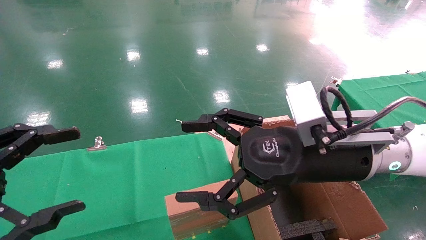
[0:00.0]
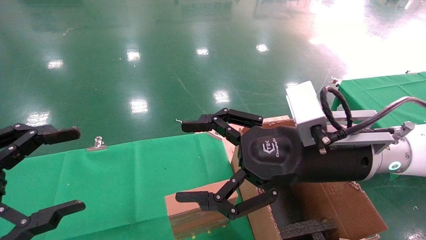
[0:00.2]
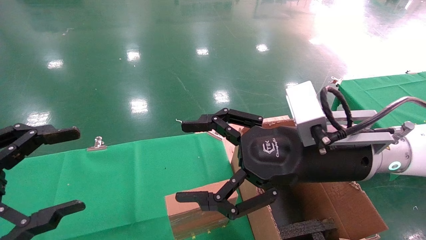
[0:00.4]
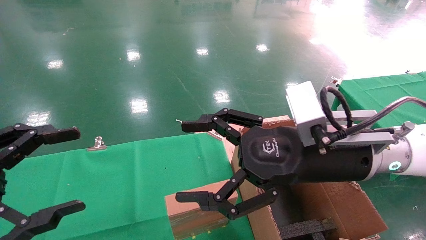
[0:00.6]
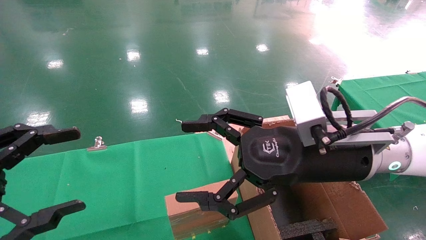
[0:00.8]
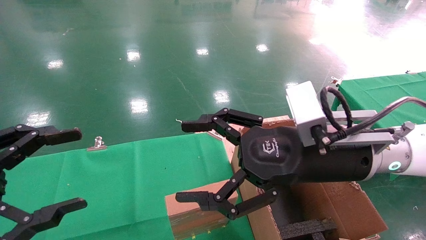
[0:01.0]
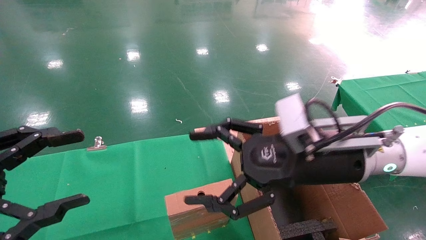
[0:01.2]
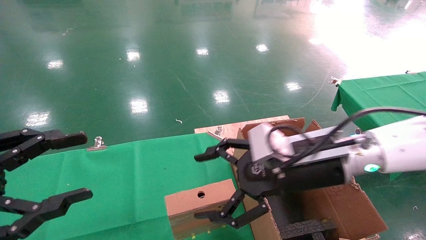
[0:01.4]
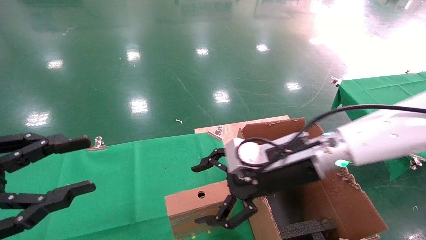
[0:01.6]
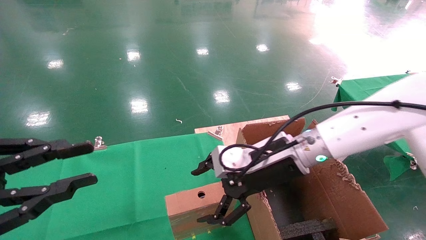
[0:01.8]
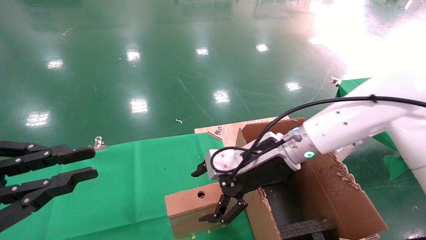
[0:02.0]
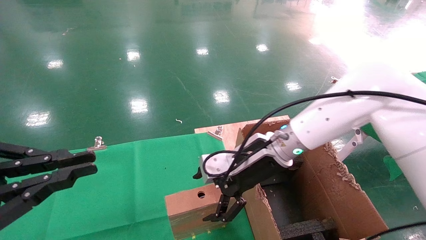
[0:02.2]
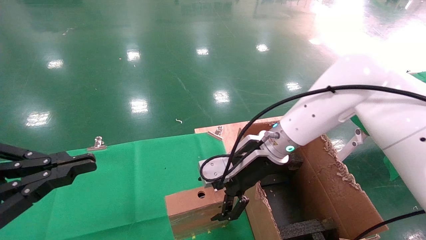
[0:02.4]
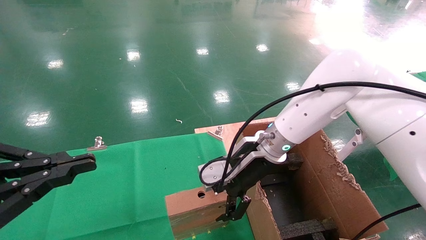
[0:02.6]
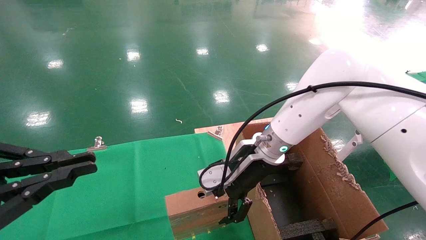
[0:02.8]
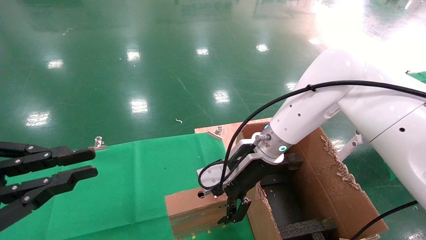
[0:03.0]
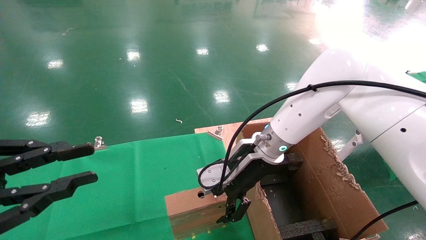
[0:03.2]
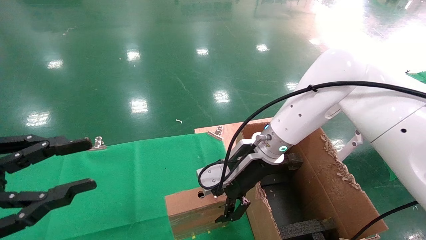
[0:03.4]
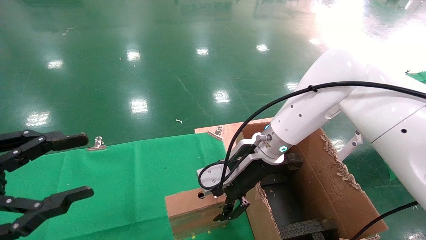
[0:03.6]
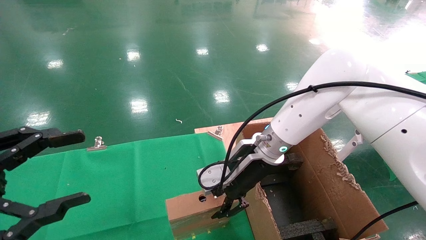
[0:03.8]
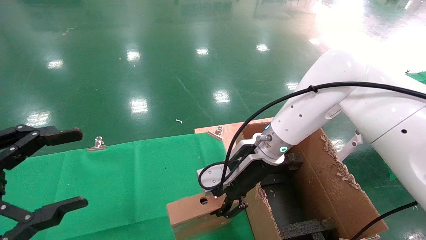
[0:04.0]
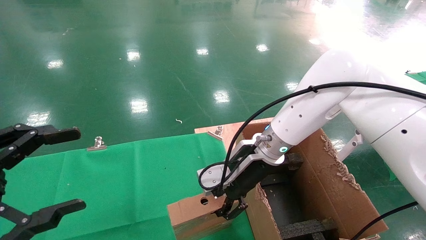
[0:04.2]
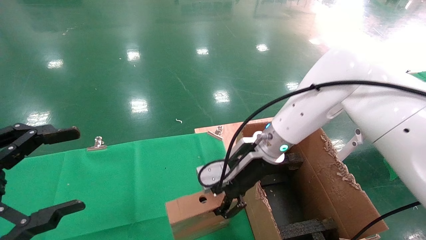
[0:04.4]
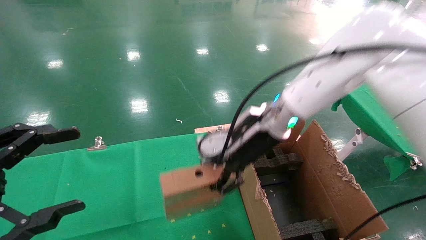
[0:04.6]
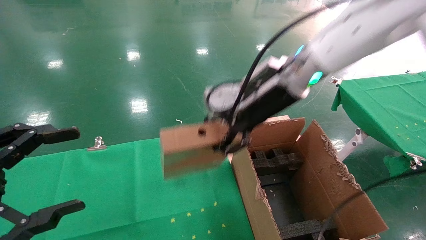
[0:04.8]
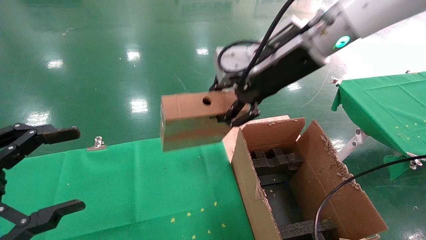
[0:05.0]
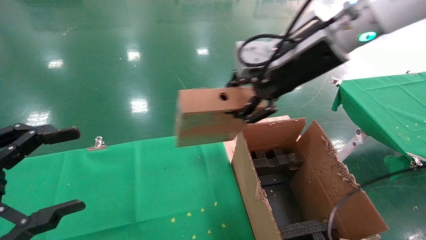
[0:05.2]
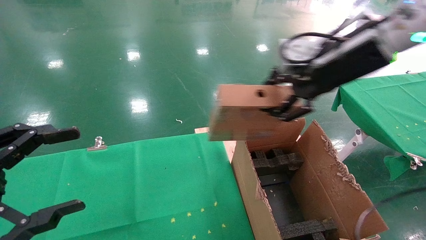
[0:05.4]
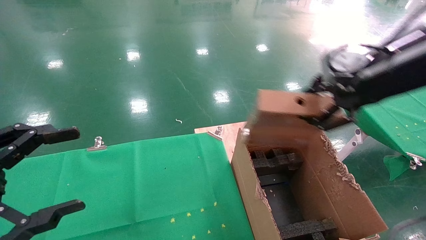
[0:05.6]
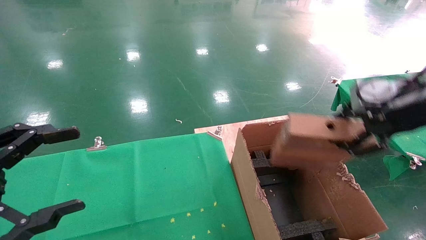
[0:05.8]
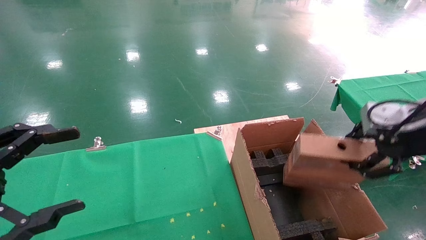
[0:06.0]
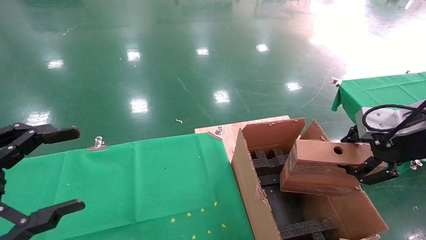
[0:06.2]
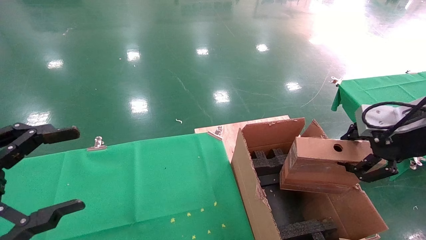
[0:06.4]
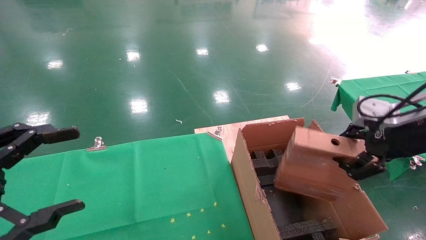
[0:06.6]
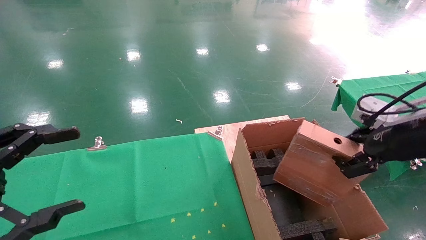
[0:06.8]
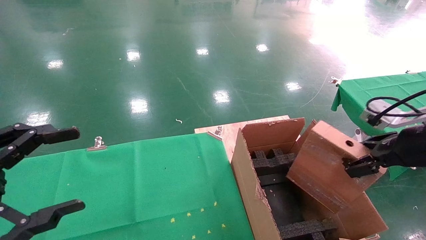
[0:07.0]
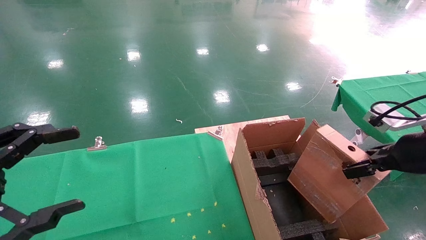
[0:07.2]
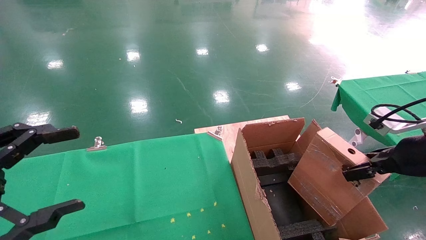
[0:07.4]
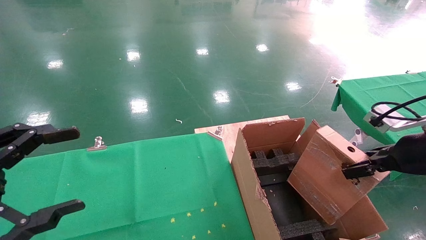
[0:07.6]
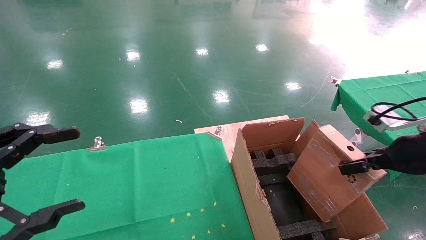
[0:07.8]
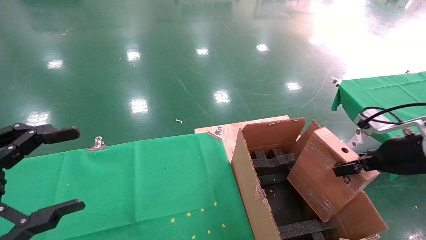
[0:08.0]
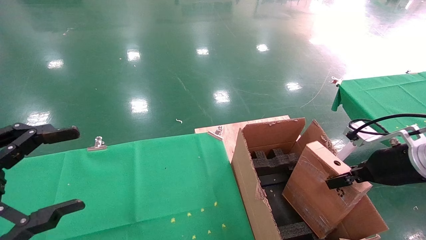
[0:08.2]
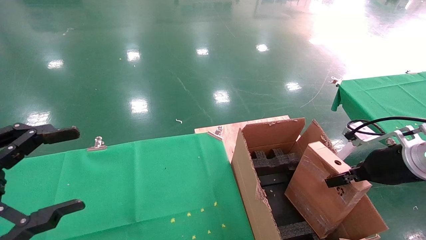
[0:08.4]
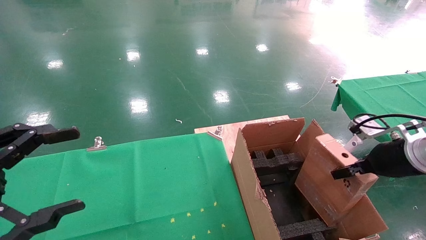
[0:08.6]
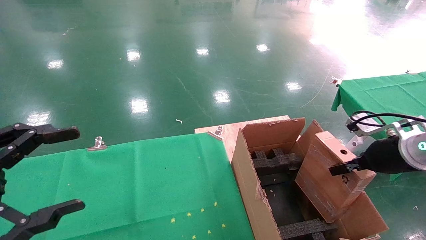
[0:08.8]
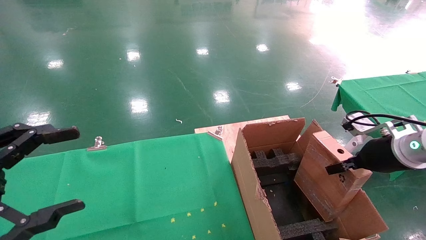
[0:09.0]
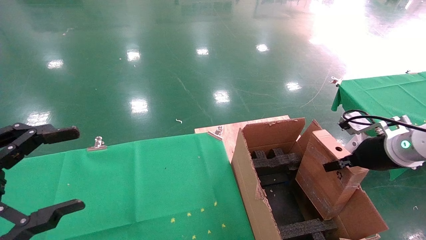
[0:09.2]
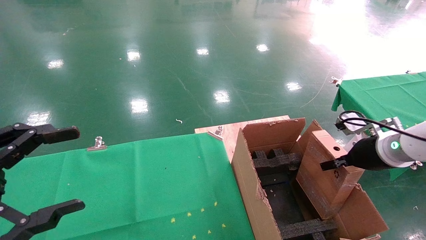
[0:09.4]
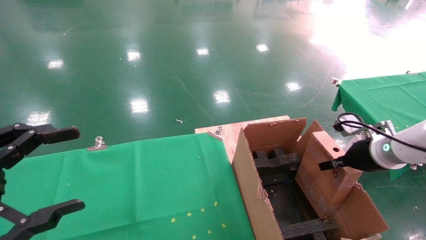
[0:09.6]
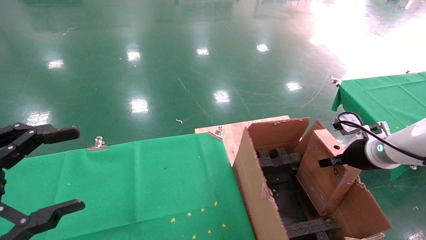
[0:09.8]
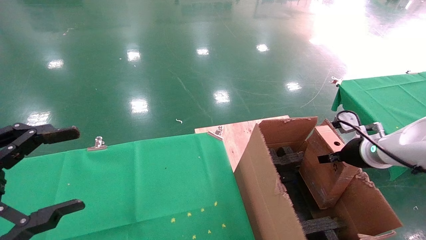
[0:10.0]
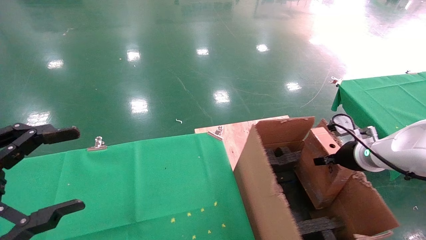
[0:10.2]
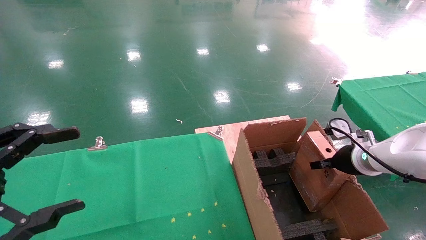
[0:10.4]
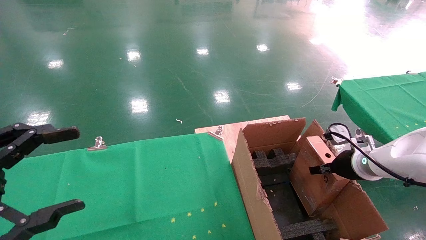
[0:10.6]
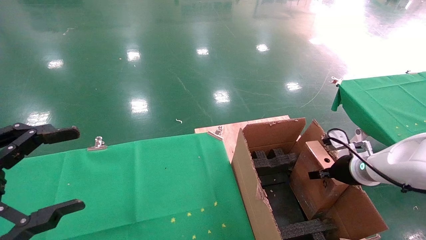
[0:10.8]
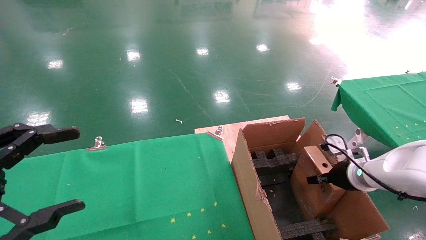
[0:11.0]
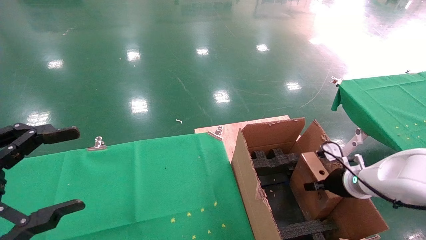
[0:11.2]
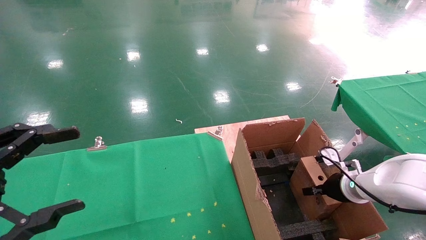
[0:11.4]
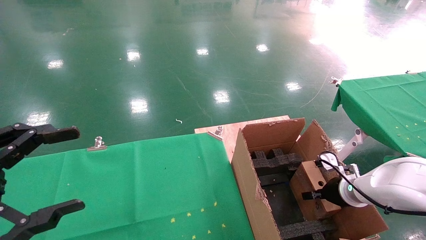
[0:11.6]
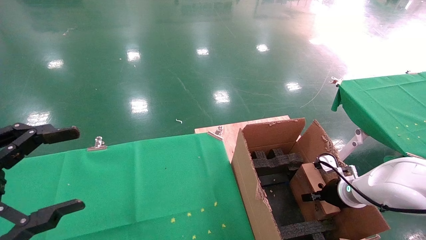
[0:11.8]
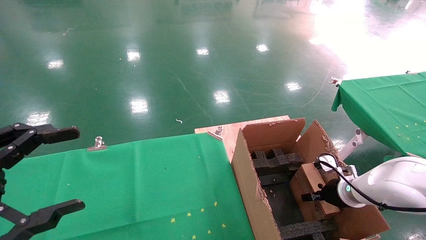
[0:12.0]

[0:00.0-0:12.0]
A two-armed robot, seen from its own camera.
Task of the whole recording: using a robotic arm to pick up a cardboard box and palace it the carton.
Step, 0:01.4 to 0:03.8: Pick up the mouse and the power cord paper box.
0:00.0 to 0:01.6: The right gripper goes roughly 5 cm forward. Meanwhile the left gripper closes its fingers.
0:01.6 to 0:03.0: The left gripper closes up, while the right gripper shifts about 5 cm forward.
0:03.0 to 0:04.4: The right gripper closes its fingers; the left gripper opens up.
0:04.4 to 0:06.0: The right gripper goes roughly 30 cm to the right and backward.
0:06.0 to 0:07.6: The right gripper heads downward, covering roughly 10 cm.
0:07.6 to 0:09.0: The right gripper goes approximately 5 cm forward.
0:09.0 to 0:10.4: The right gripper moves downward and forward, approximately 10 cm.
0:10.4 to 0:12.0: The right gripper heads downward, covering about 10 cm.

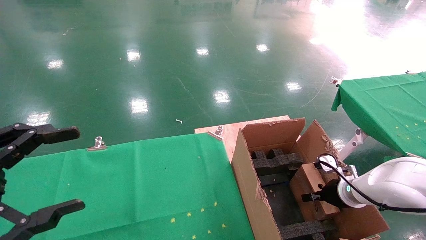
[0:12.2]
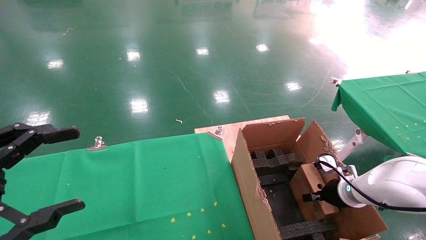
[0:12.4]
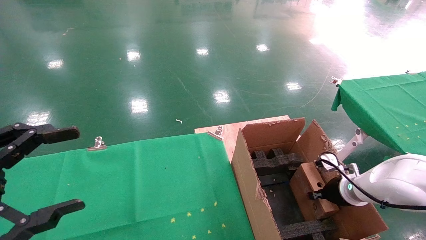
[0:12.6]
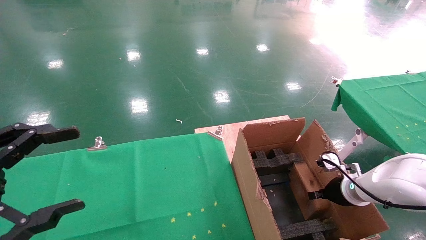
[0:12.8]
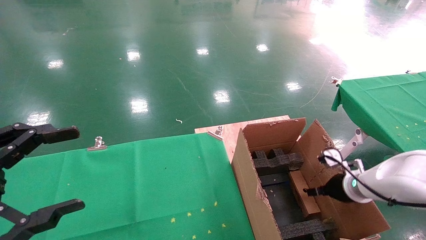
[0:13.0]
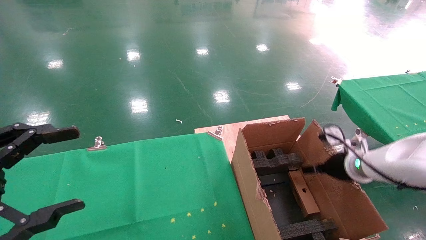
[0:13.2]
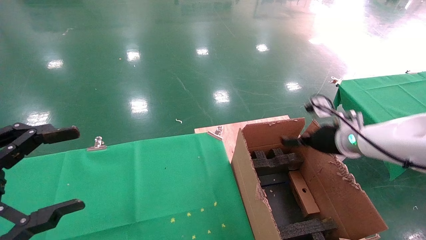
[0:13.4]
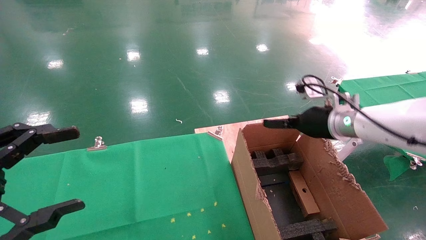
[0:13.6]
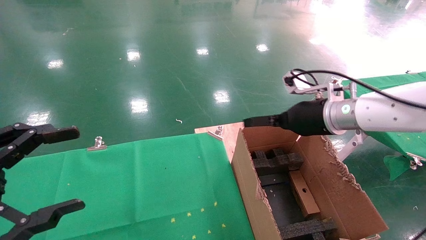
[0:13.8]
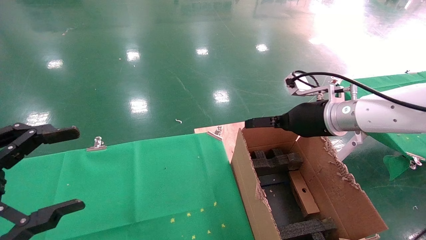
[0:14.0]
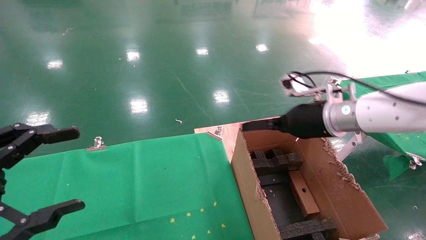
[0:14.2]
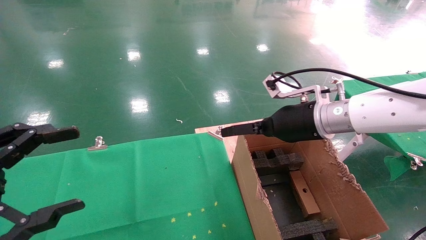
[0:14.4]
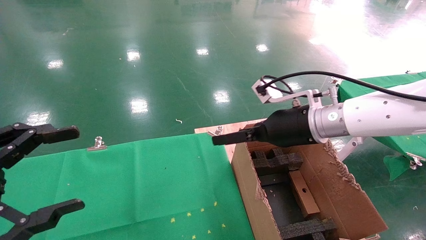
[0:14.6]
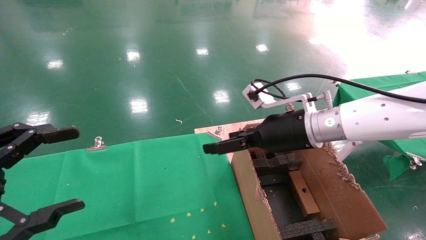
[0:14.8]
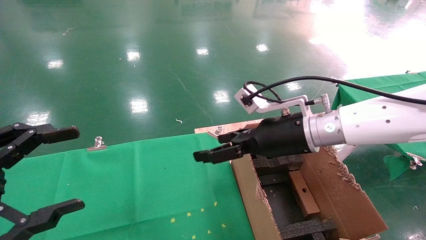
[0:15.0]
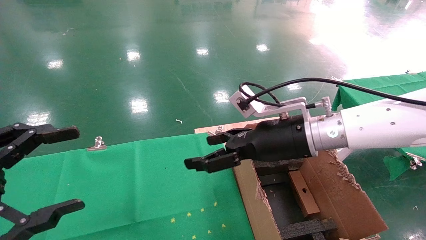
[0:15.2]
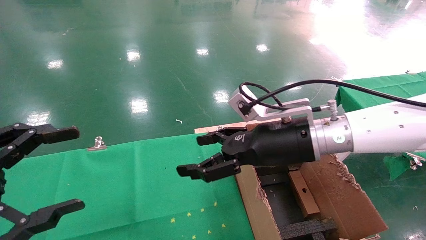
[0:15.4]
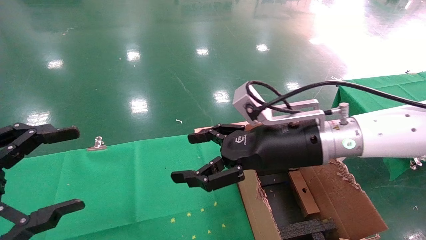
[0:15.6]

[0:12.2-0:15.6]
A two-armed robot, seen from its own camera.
Task of the whole recording: using a robotic arm to pick up a cardboard box and palace it the carton.
0:12.2 to 0:13.8: The right gripper is displaced upward and to the left by roughly 20 cm, and opens up.
0:13.8 to 0:15.6: The right gripper heads to the left and backward, covering some 15 cm.
